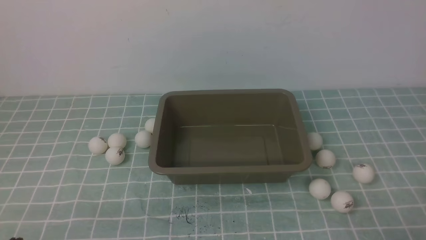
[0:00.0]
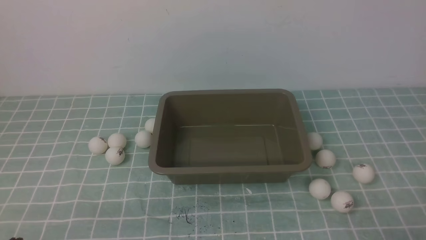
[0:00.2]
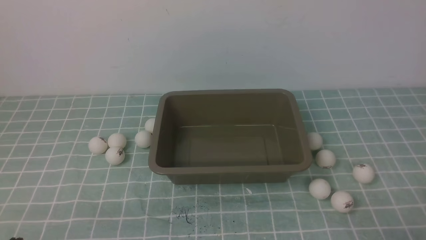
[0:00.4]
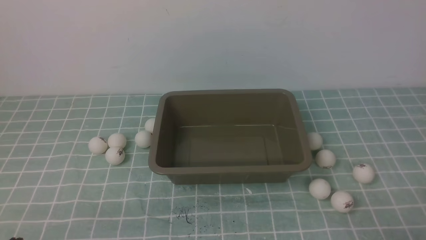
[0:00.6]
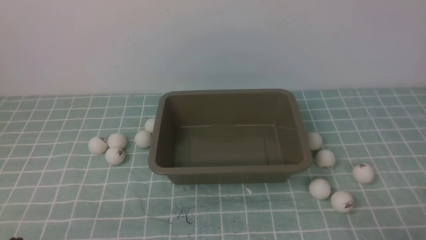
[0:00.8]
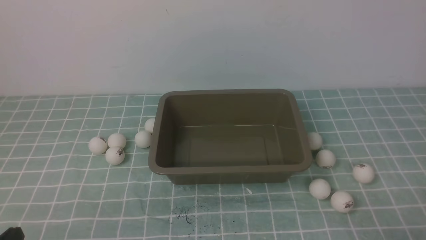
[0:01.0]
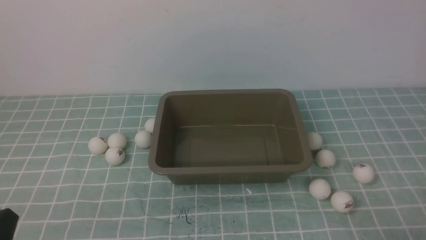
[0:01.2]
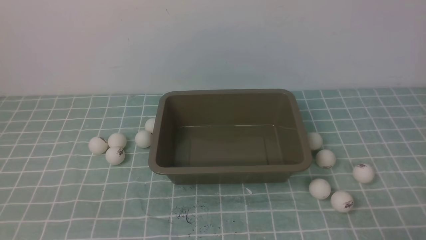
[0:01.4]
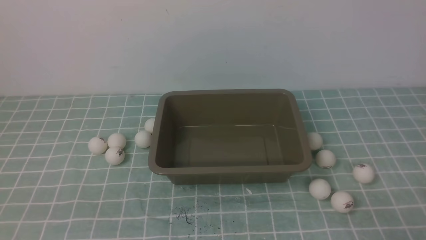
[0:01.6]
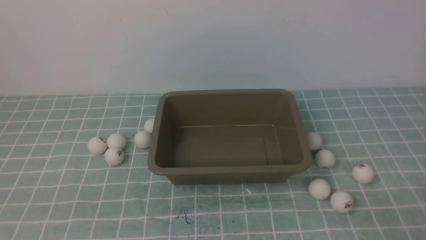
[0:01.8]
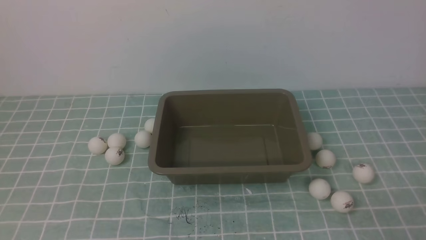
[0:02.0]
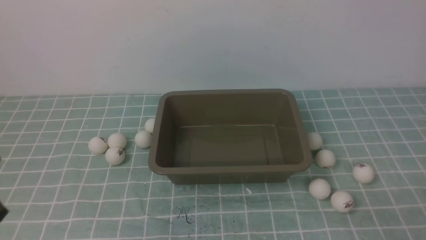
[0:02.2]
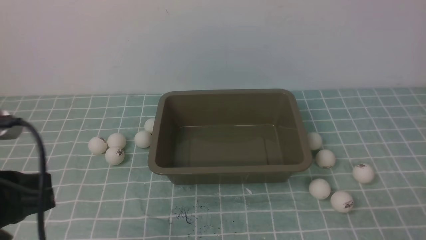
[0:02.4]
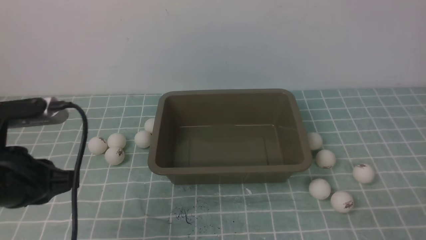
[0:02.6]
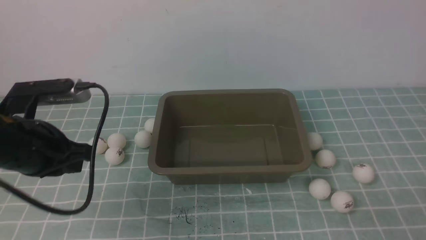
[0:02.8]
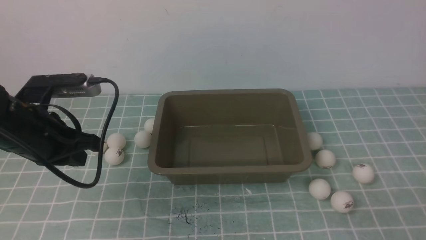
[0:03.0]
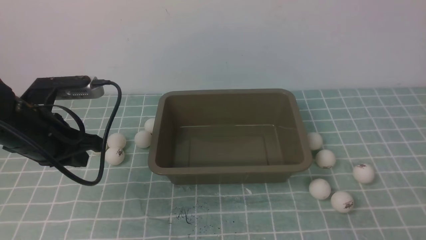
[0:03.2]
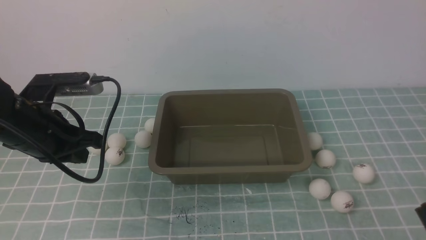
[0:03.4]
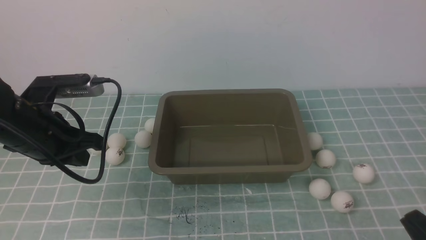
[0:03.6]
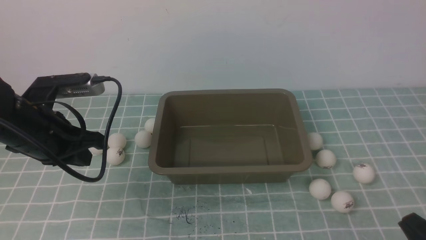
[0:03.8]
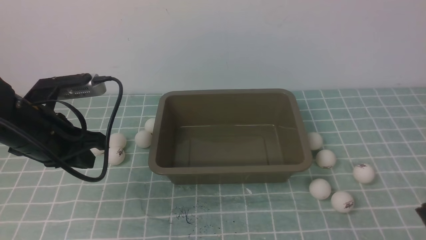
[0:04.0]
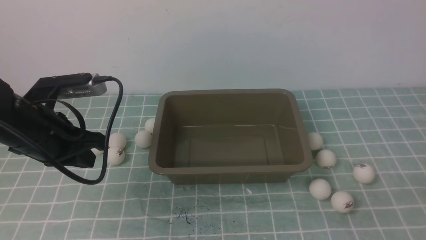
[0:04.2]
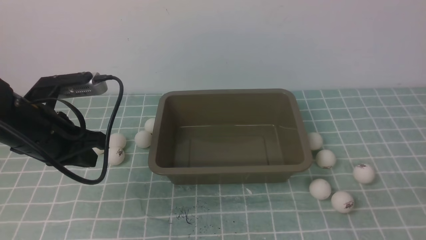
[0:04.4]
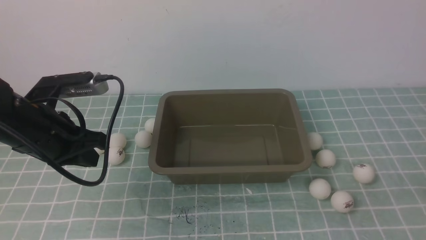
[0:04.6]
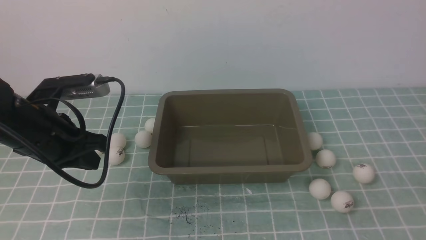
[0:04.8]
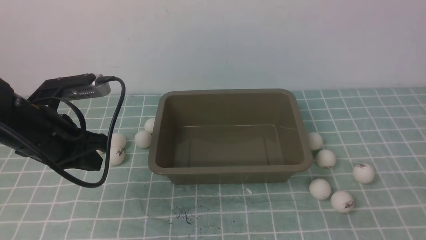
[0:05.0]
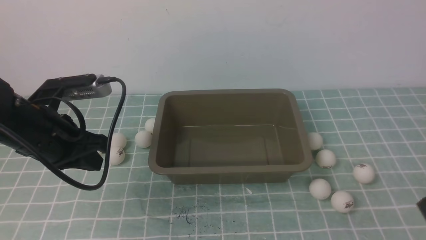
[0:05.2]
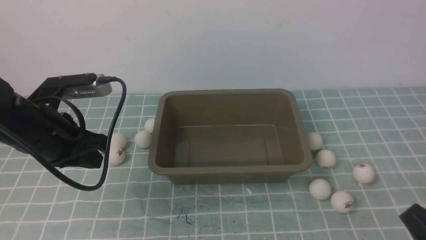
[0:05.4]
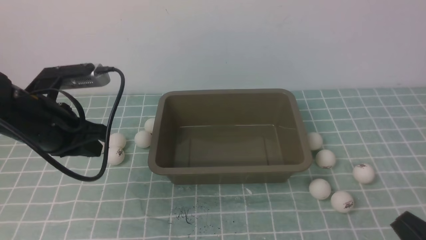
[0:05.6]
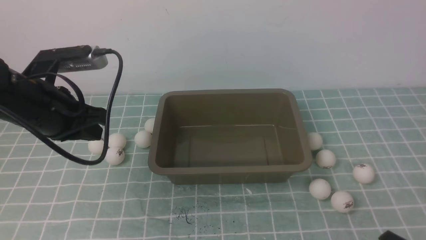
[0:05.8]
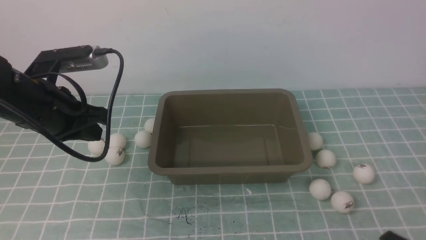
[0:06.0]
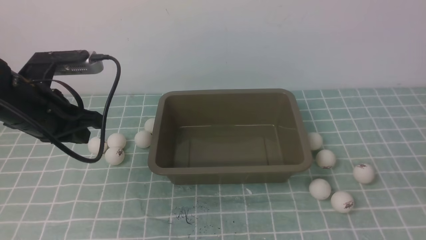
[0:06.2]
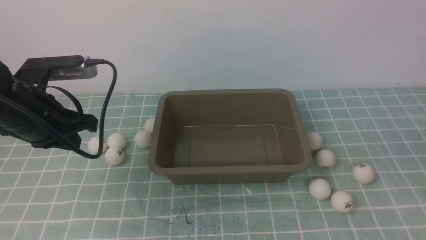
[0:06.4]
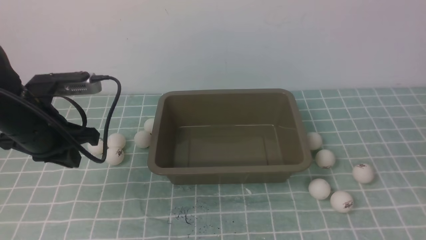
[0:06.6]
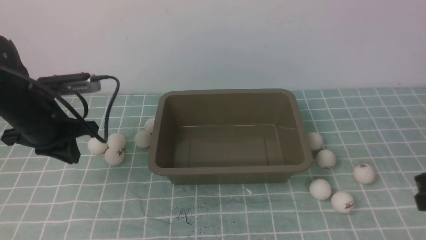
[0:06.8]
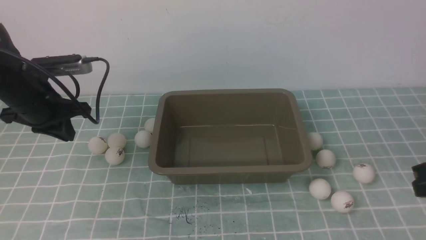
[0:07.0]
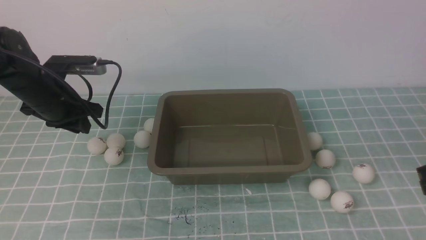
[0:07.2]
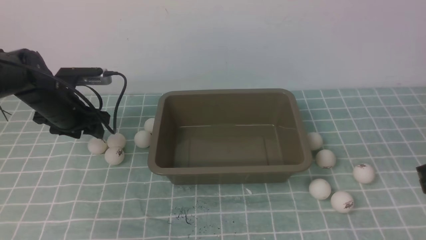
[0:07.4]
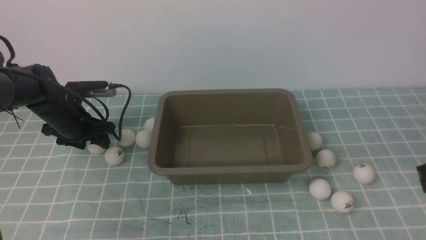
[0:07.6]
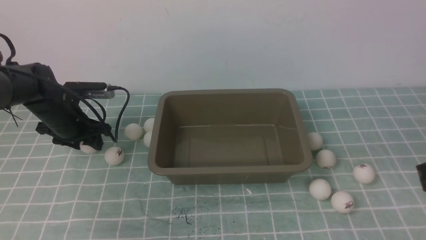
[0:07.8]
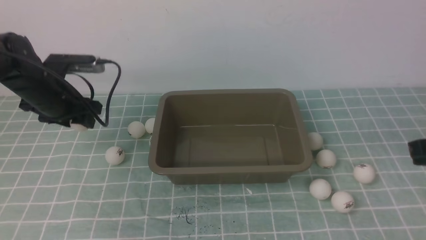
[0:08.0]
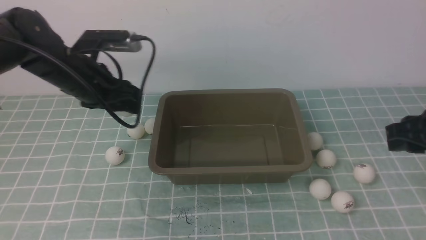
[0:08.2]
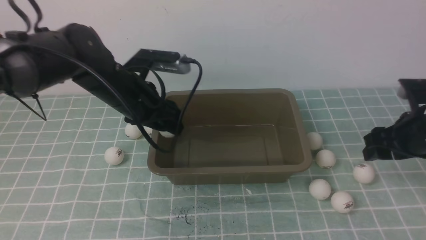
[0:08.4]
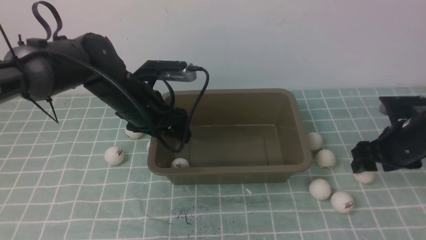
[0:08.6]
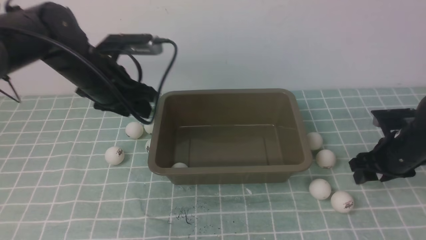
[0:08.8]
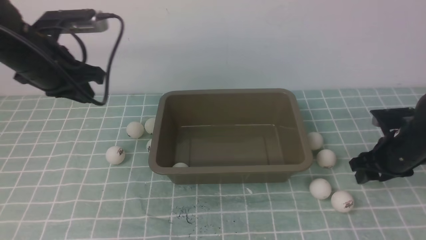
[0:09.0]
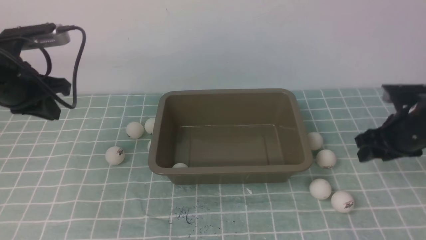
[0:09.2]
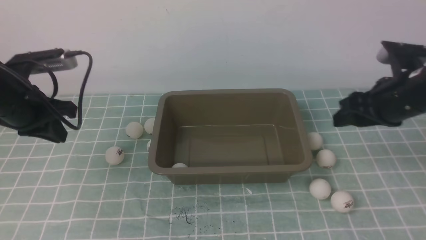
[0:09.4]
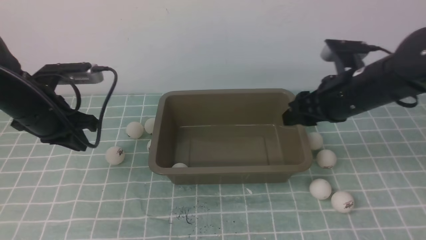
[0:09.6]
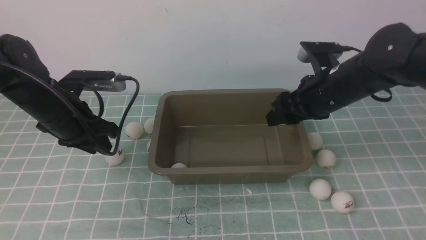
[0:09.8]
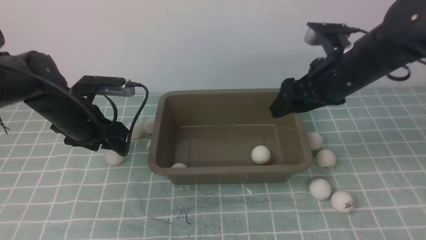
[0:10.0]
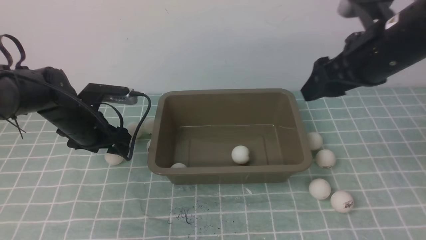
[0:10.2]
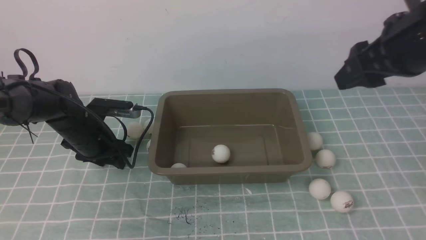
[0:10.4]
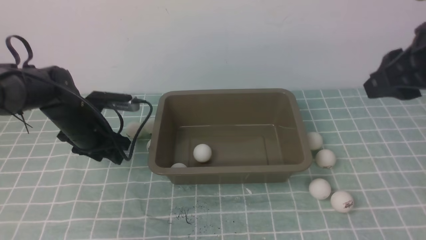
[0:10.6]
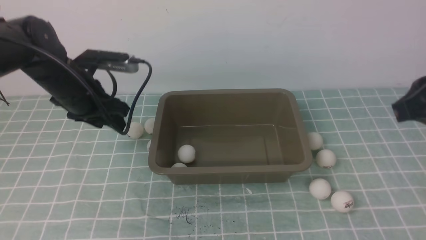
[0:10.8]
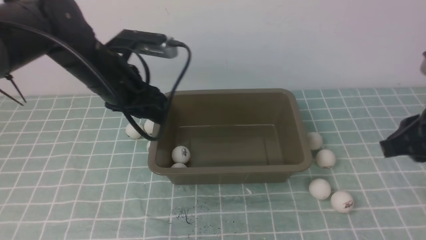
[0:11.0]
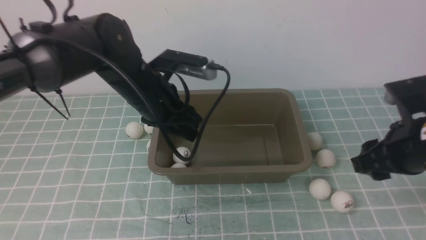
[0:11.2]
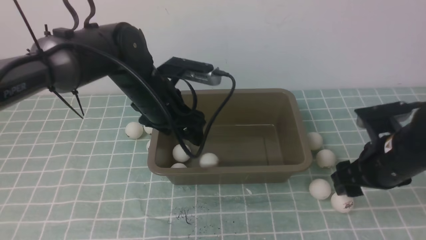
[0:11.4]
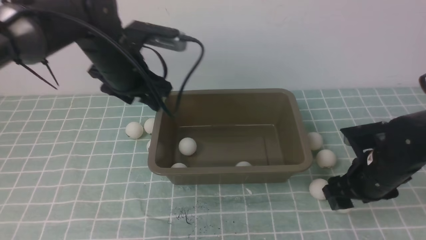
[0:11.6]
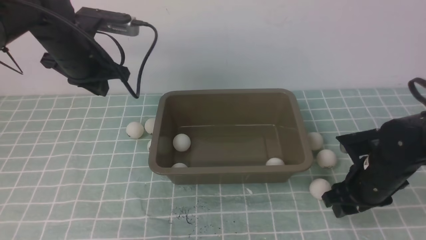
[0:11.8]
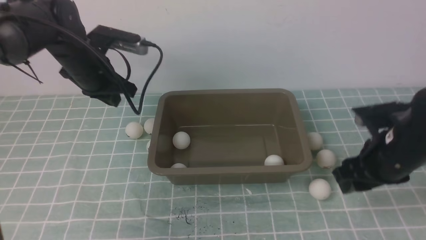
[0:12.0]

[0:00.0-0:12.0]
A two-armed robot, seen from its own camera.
Step, 0:00.0 to 0:07.8: use the left arm to clamp the table tennis ball closest to it.
Step, 0:08.2 to 0:08.4: use the left arm to put the table tennis ball into the box.
Step, 0:08.6 to 0:09.0: use the right arm to clamp the table tennis ball closest to it.
Step, 0:09.2 to 0:09.8: use the right arm to put the table tennis ball into the box.
Step, 0:10.0 to 0:10.8: use the left arm to clamp the table tennis ball closest to it.
Step, 0:11.0 to 0:11.2: use the left arm to put the table tennis ball into the box.
0:01.6 to 0:03.0: The left gripper heads forward, covering approximately 20 cm.
0:06.0 to 0:07.6: The left gripper heads downward and forward, covering some 15 cm, and opens up.
0:07.6 to 0:09.0: The left gripper is displaced upward by roughly 15 cm, and closes up, while the right gripper is displaced forward and downward by some 20 cm, and opens its fingers.
0:09.0 to 0:10.4: The right gripper is displaced upward by approximately 20 cm, while the left gripper is displaced downward by approximately 15 cm, and opens.
0:10.4 to 0:12.0: The left gripper is displaced upward by approximately 10 cm, and closes its fingers. The right gripper shifts some 15 cm downward.

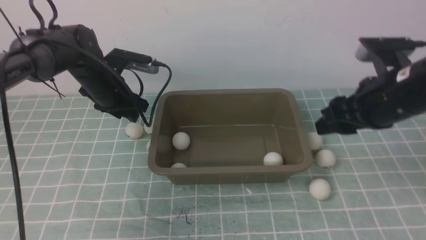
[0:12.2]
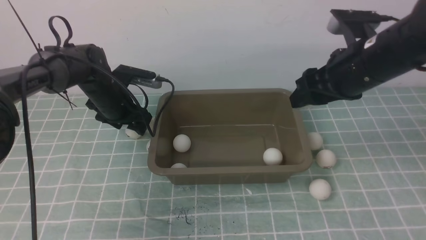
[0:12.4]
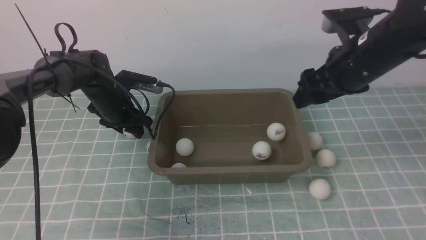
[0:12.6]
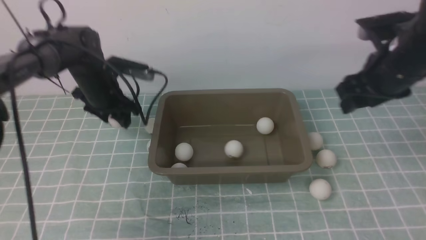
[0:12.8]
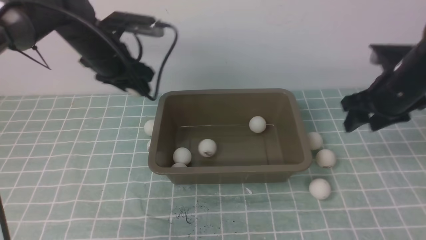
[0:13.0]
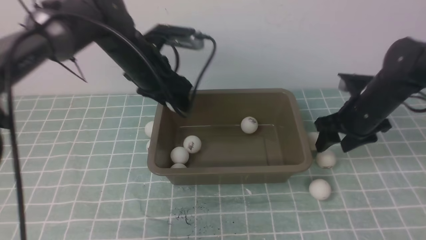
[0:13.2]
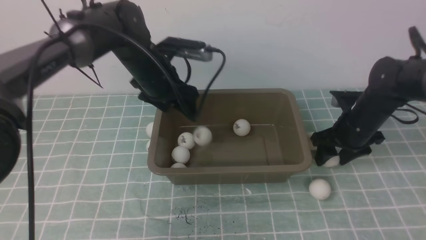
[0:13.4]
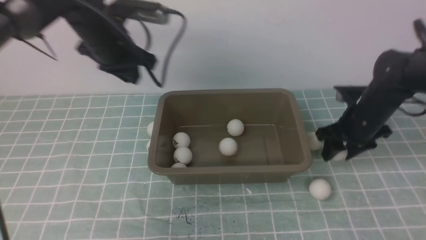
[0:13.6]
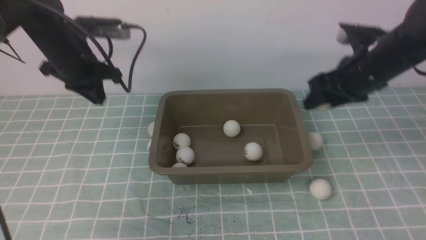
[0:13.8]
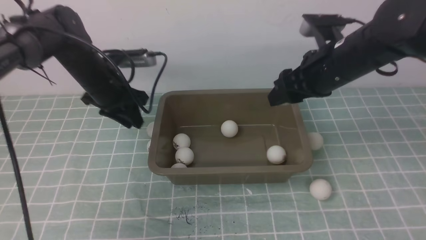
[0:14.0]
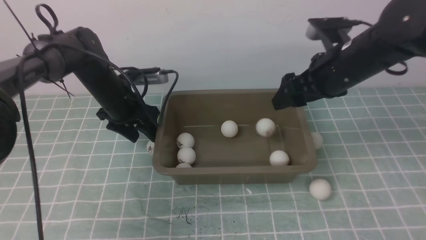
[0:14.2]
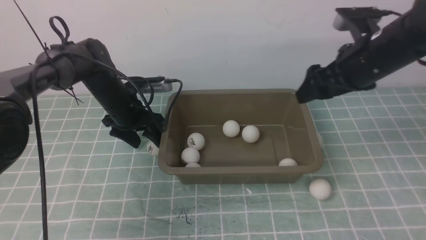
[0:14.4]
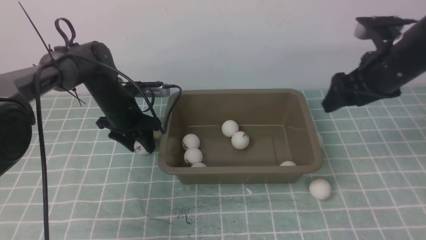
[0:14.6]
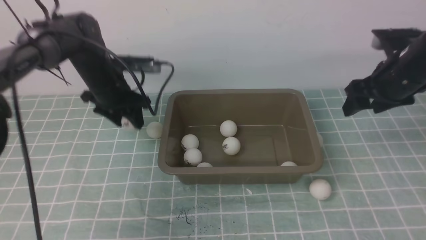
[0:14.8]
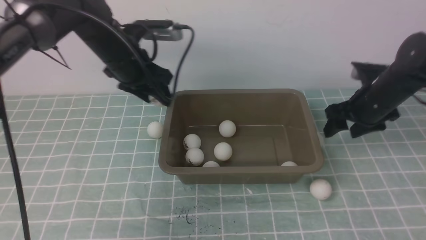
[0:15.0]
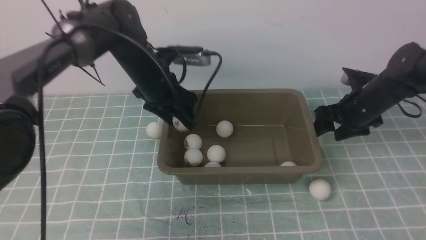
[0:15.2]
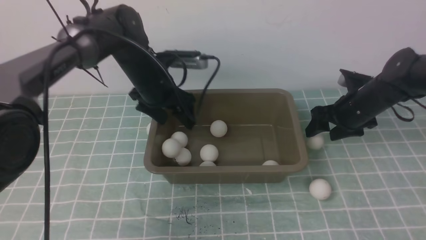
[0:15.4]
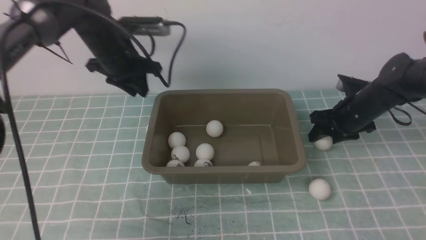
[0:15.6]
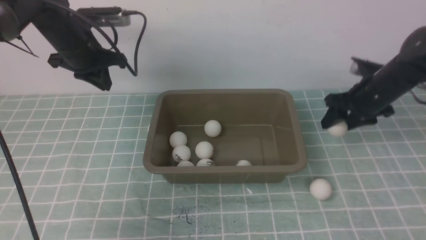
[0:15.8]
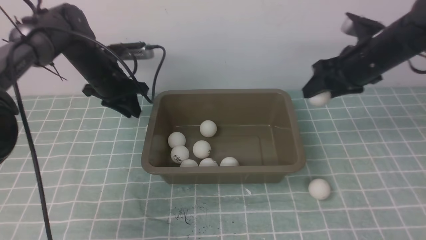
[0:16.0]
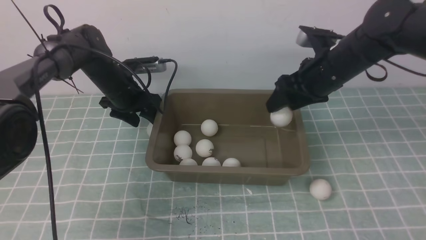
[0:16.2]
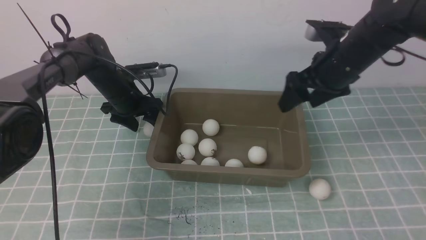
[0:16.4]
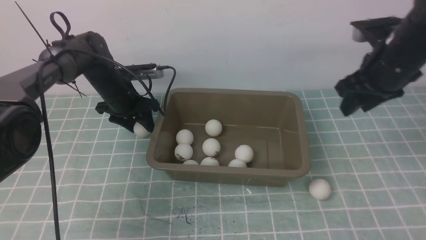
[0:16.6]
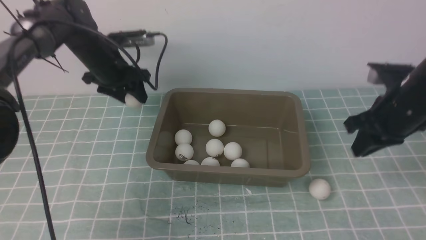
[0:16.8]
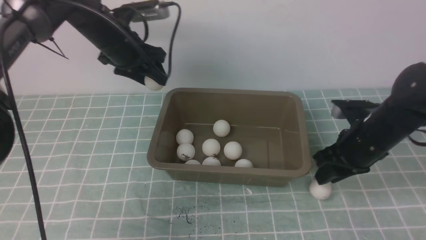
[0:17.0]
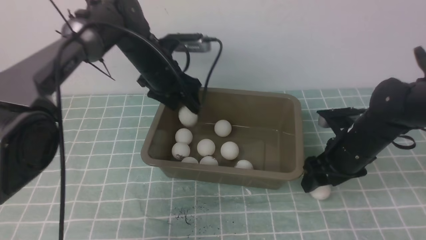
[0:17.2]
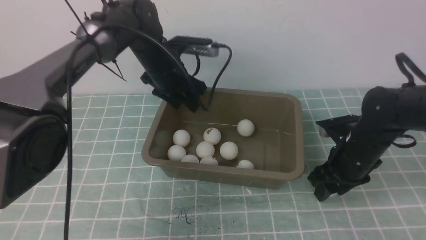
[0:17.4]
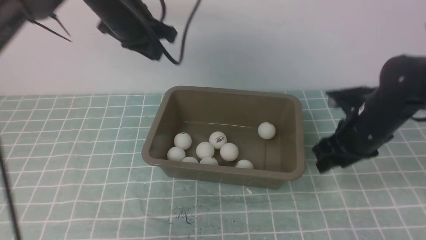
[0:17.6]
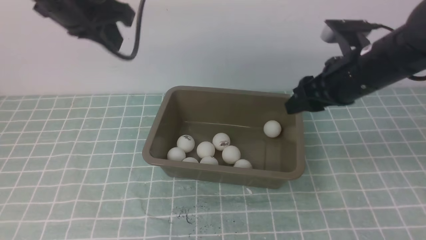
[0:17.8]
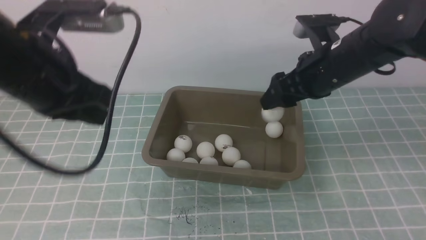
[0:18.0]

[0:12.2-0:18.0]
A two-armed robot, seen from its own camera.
Step, 0:12.2 to 0:12.6: use the right arm to put the table tennis ball into the box.
Step, 0:13.0 to 0:13.4: use the left arm to put the table tennis ball into the box.
Step, 0:13.8 to 0:14.2: use the right arm to put the table tennis ball into the box.
Step, 0:14.4 to 0:14.6: use the left arm to clamp the table tennis ball closest to it.
Step, 0:14.8 to 0:15.2: use the left arm to put the table tennis ball into the box.
Step, 0:15.8 to 0:16.2: use the right arm to put the table tennis ball into the box.
Step, 0:16.4 to 0:16.6: use the left arm to clamp the table tennis ball closest to it.
Step, 0:16.8 to 0:17.2: use the left arm to put the table tennis ball into the box.
Step, 0:17.4 to 0:17.6: use the right arm to clamp the table tennis ball closest to it.
0:12.2 to 0:13.6: The left gripper travels upward by approximately 10 cm. Meanwhile the right gripper is displaced forward and downward by some 10 cm.
0:13.6 to 0:15.0: The right gripper travels upward and back again, some 10 cm each way; the left gripper reaches some 10 cm downward, then returns, and opens.
0:15.0 to 0:16.6: The right gripper travels upward by some 10 cm; the left gripper goes roughly 10 cm downward and to the left, and closes, then reopens.
0:16.6 to 0:18.0: The left gripper travels backward and upward by about 30 cm, and closes its fingers; the right gripper heads to the left, covering approximately 5 cm, and travels downward and back again, roughly 10 cm each way.
